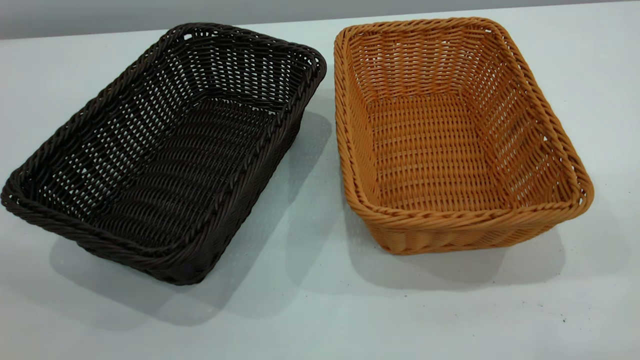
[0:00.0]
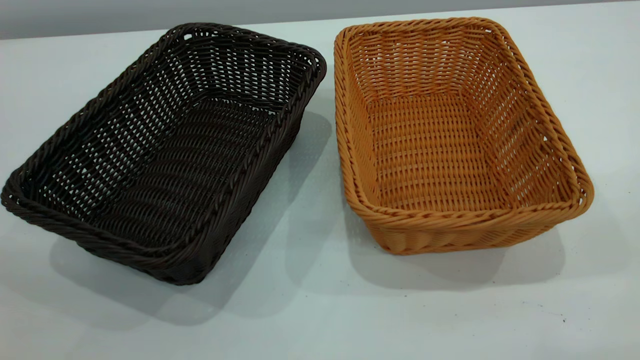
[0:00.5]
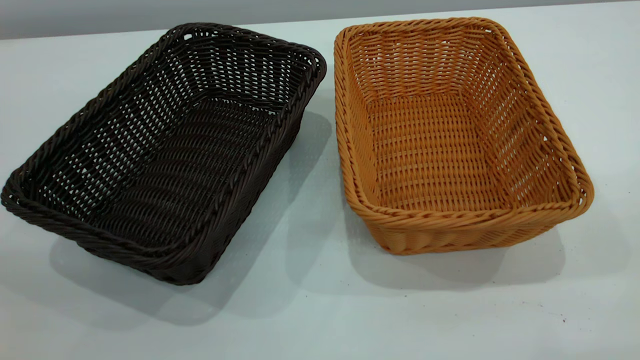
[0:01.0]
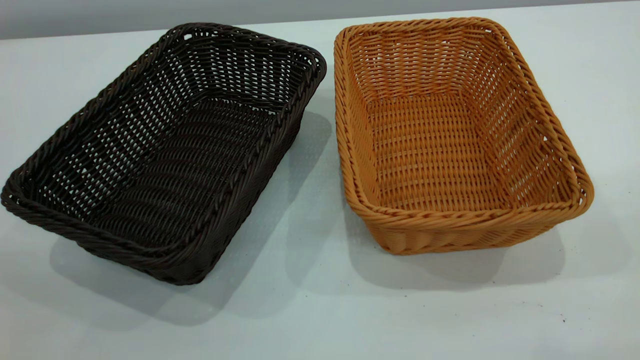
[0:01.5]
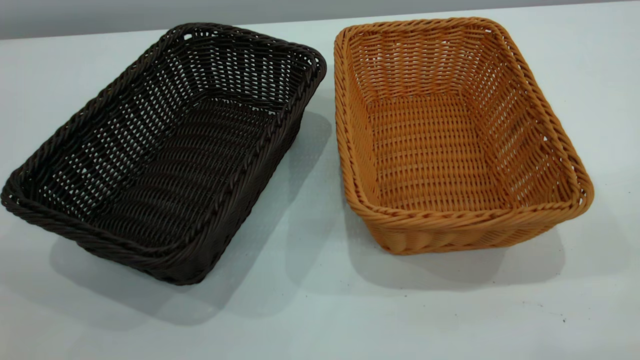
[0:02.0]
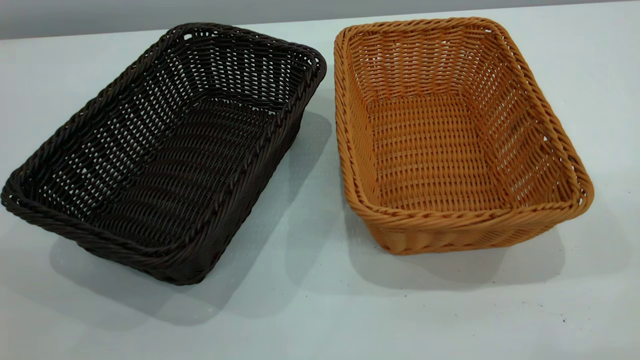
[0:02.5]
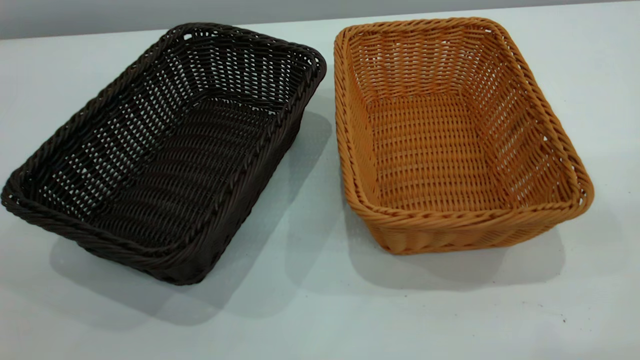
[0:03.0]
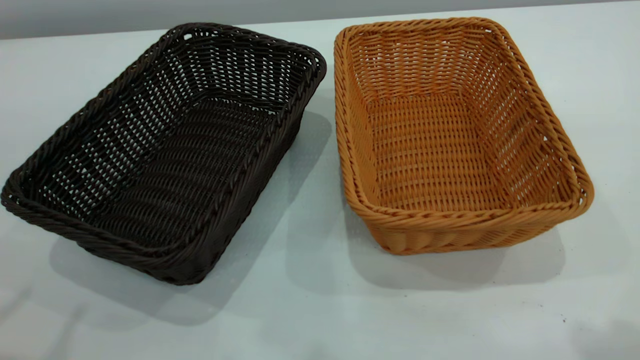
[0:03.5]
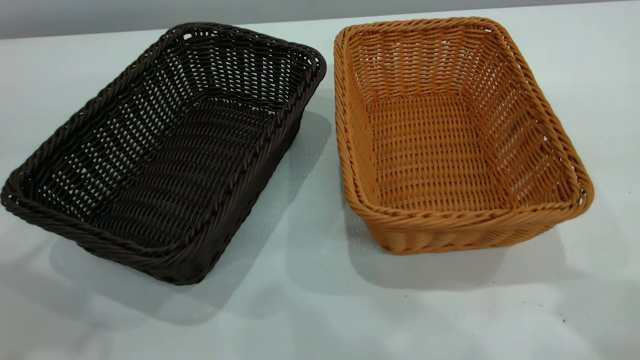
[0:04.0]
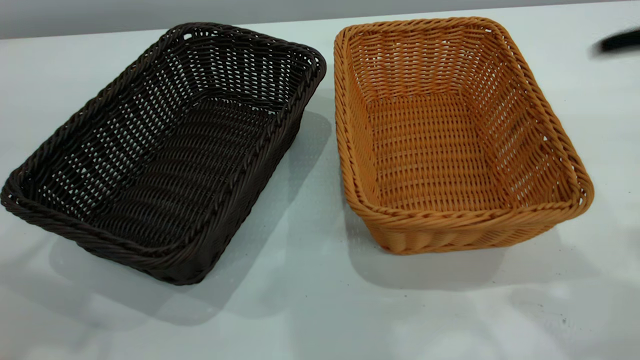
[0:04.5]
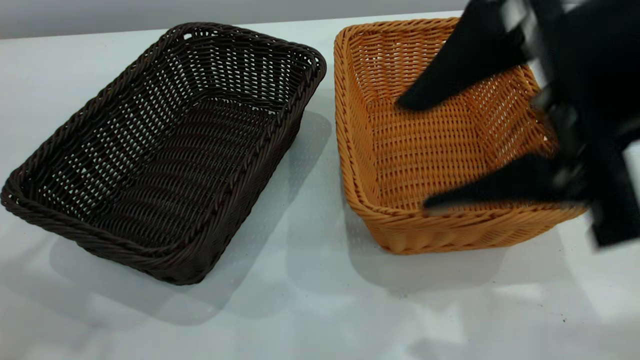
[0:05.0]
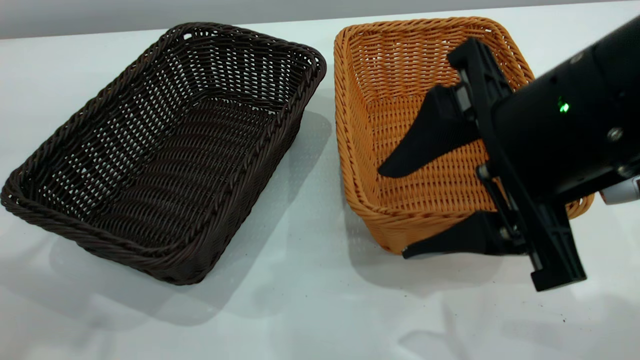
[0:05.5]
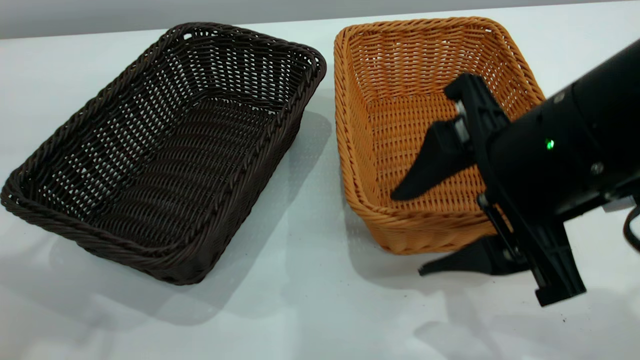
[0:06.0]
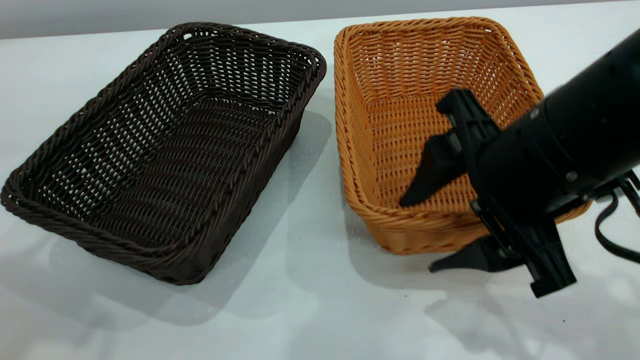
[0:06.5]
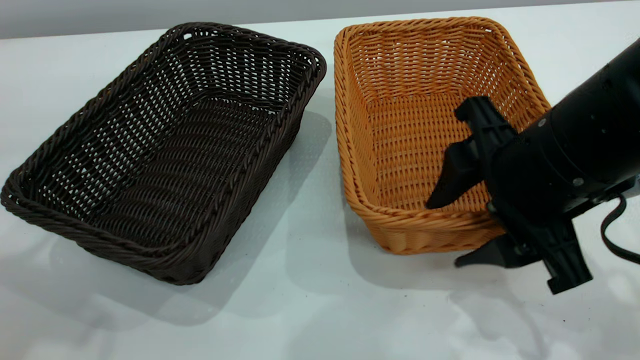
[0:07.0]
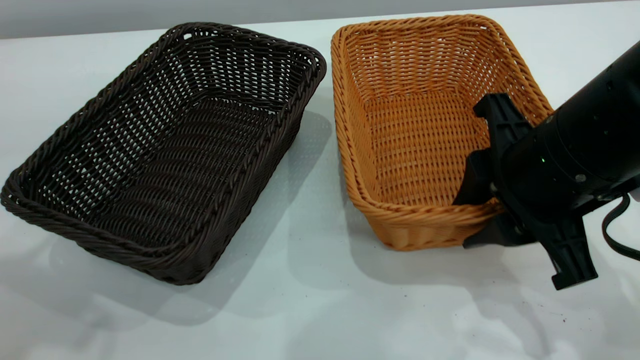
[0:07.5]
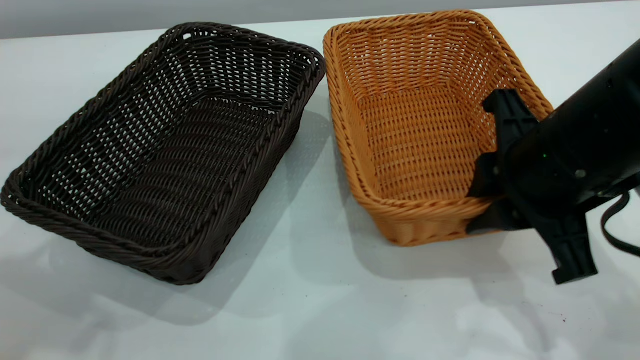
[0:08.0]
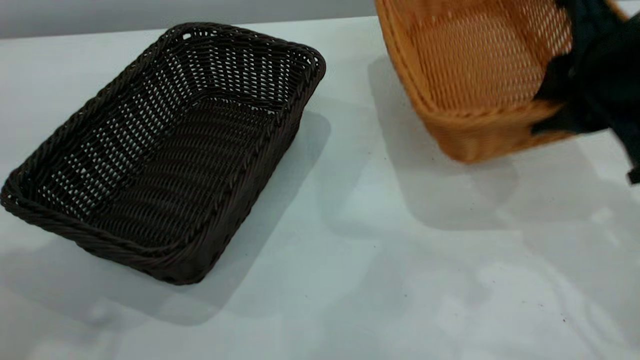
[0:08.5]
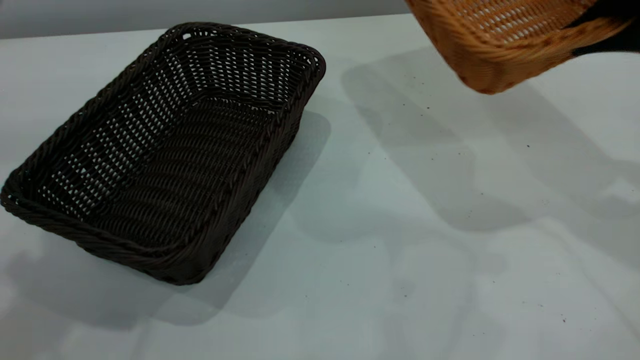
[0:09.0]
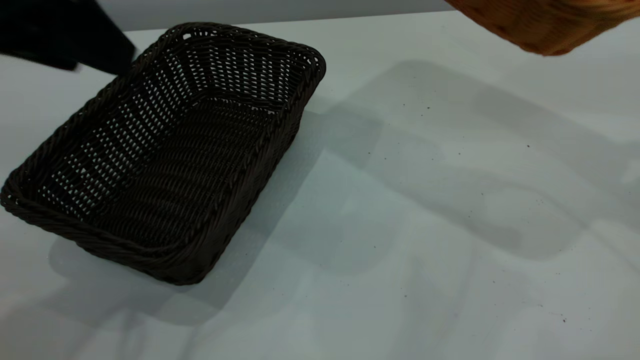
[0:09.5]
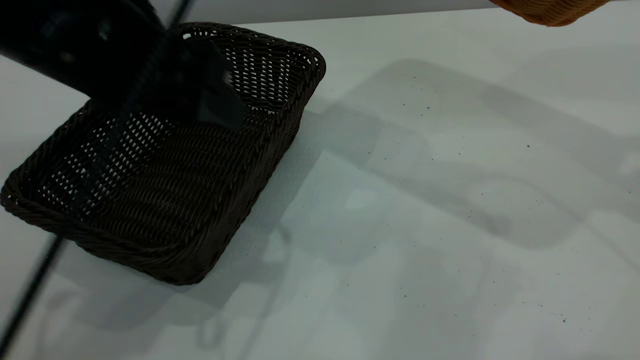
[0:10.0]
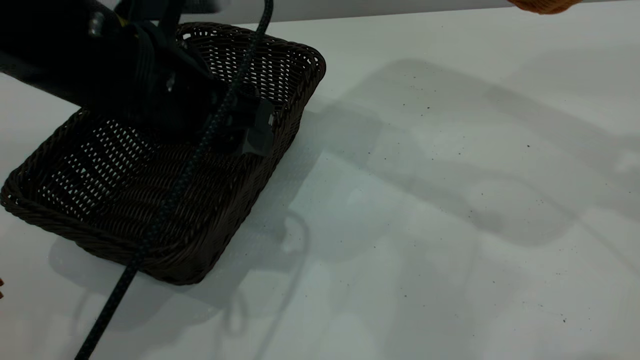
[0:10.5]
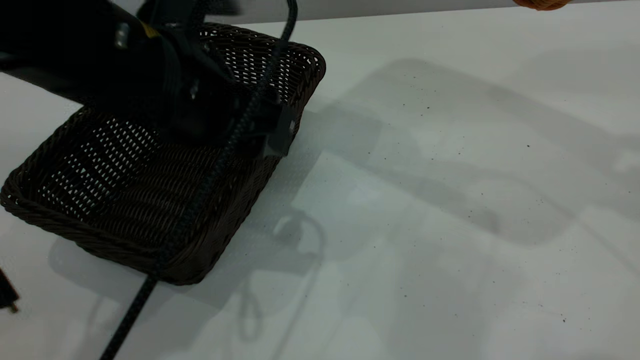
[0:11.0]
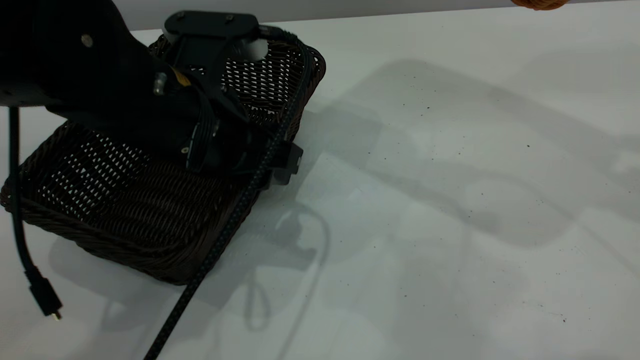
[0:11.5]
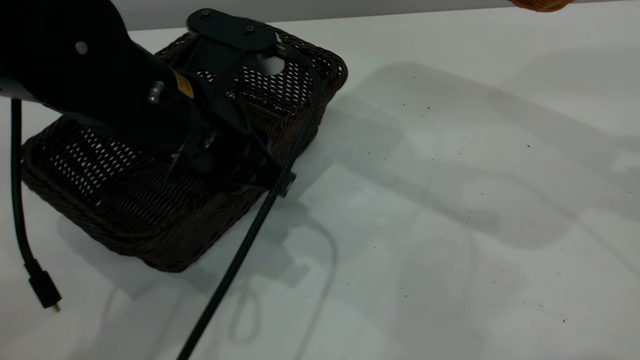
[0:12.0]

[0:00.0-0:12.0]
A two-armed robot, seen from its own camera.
Task of the whole recording: the left gripper grasp the black basket and place it in the center of the table, the right gripper grasp the brown basket and place it inside the black one.
Step, 0:00.0 to 0:08.5: Pick up the light basket with the right gripper.
0:00.0 to 0:02.0: The two grippers keep their place.
0:04.0 to 0:06.0: The right gripper moves downward and to the left, approximately 20 cm.
0:06.0 to 0:08.0: The right gripper closes.
0:08.0 to 0:10.0: The right gripper travels upward and to the right by some 20 cm; the left gripper shifts approximately 20 cm downward, to the right and forward.
0:10.0 to 0:12.0: The left gripper heads downward, covering about 5 cm, and closes its fingers.

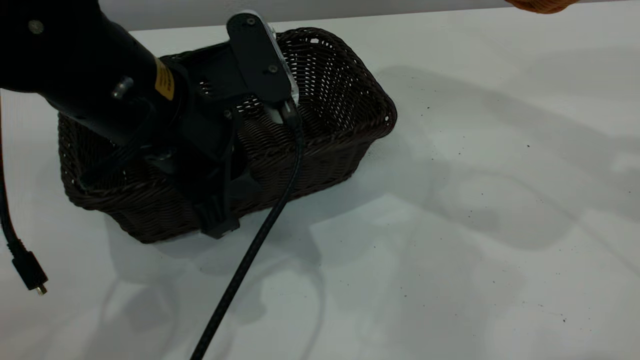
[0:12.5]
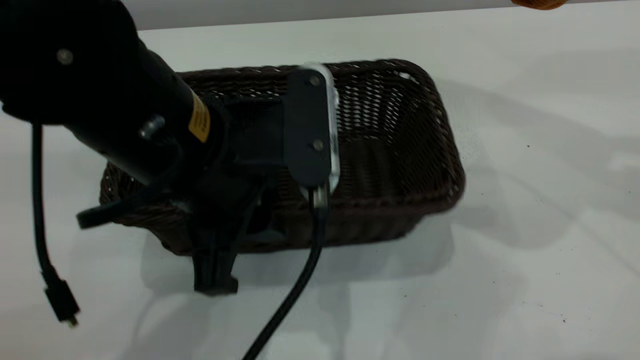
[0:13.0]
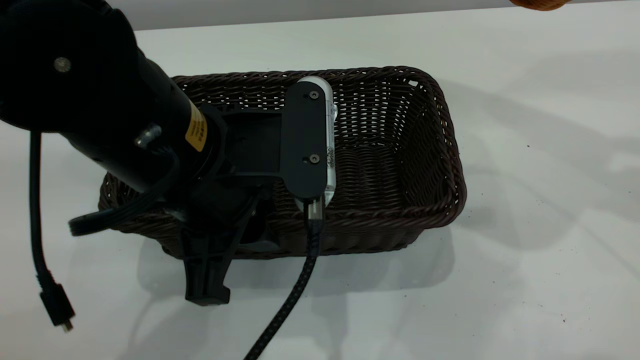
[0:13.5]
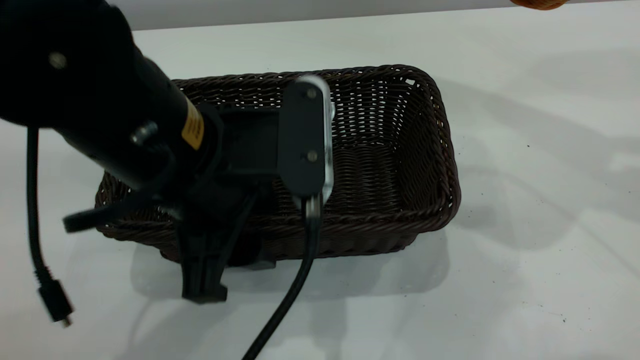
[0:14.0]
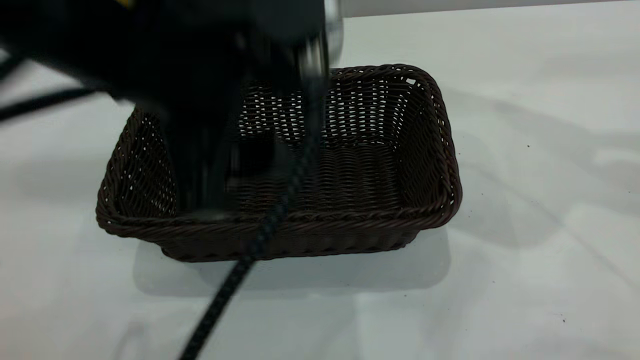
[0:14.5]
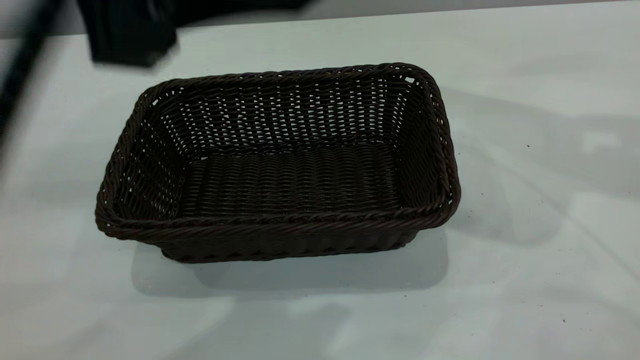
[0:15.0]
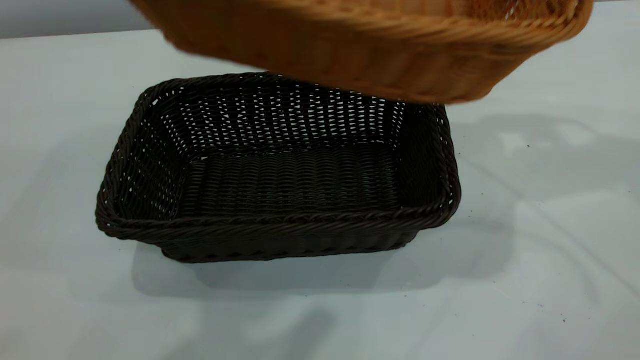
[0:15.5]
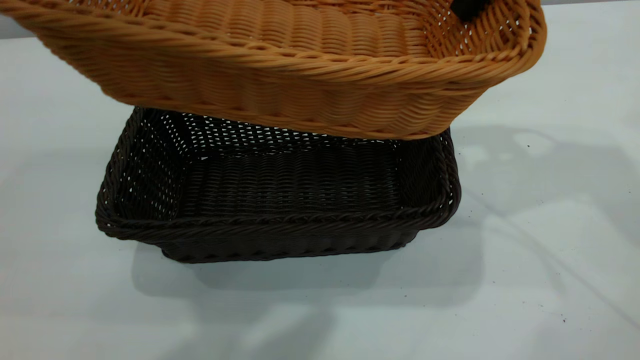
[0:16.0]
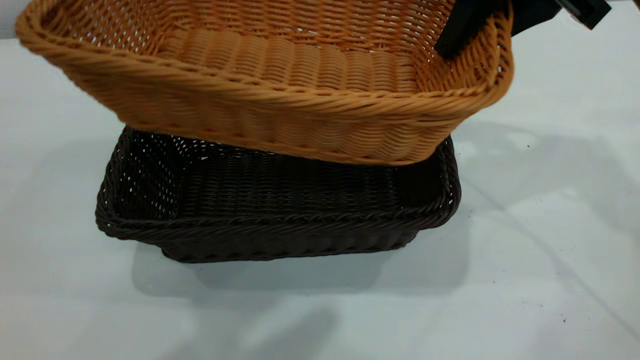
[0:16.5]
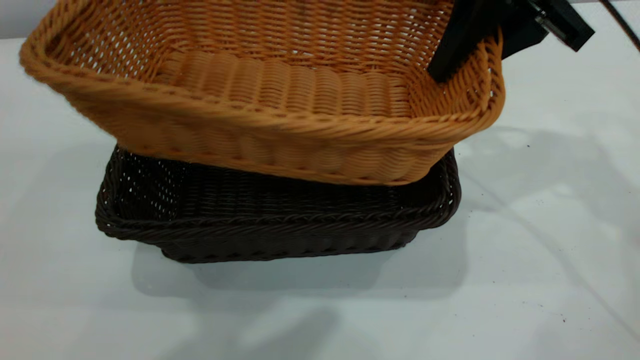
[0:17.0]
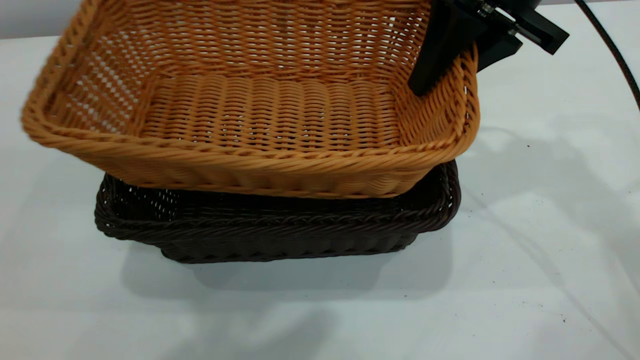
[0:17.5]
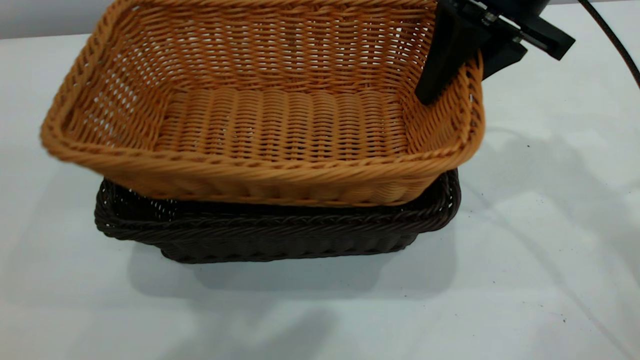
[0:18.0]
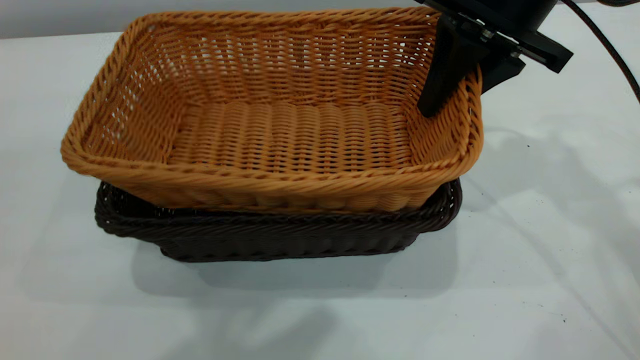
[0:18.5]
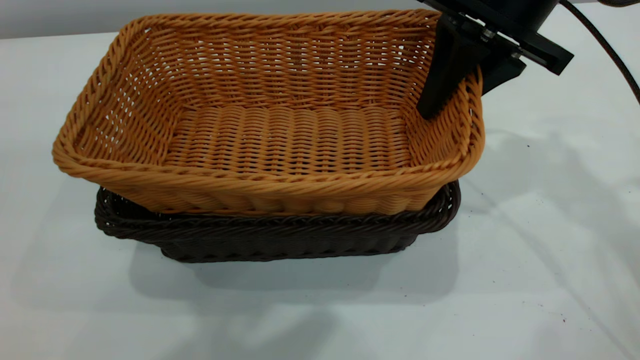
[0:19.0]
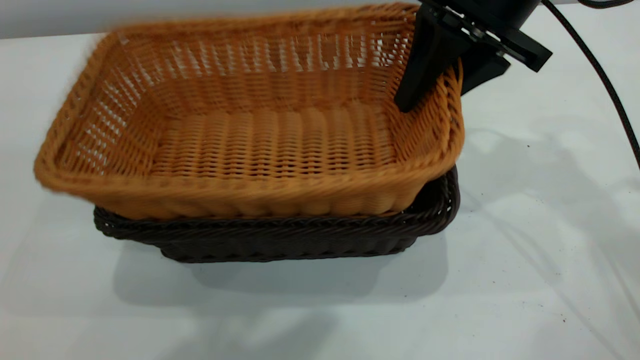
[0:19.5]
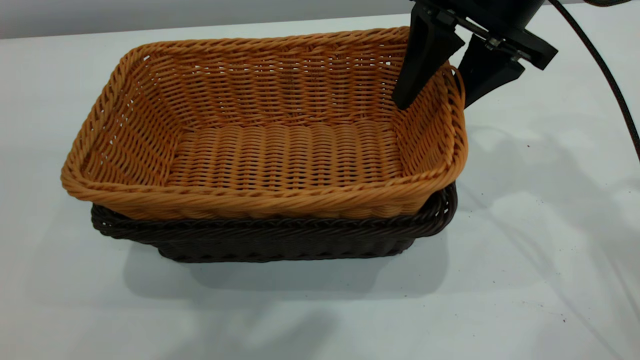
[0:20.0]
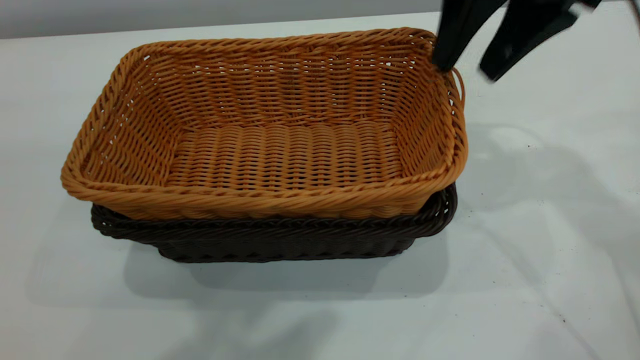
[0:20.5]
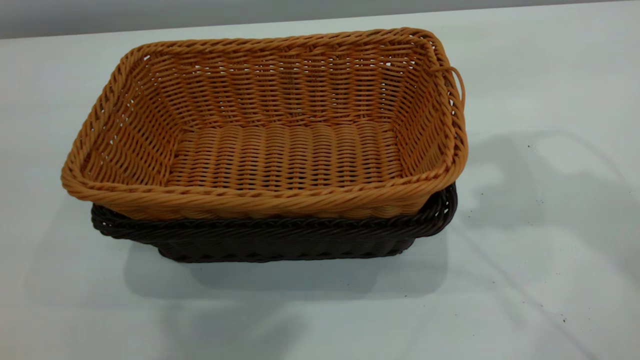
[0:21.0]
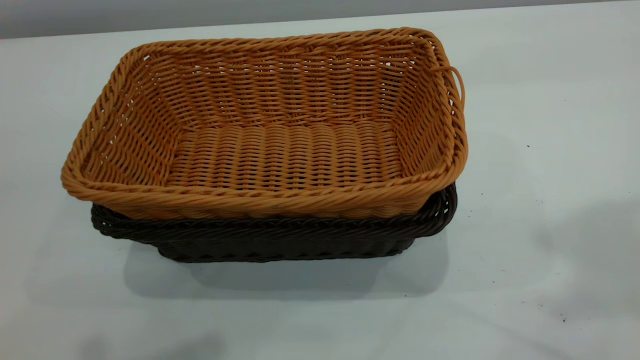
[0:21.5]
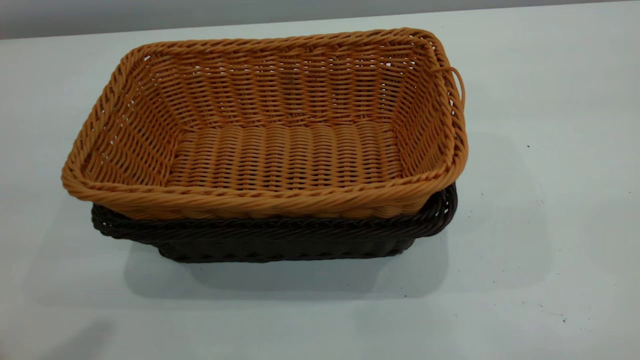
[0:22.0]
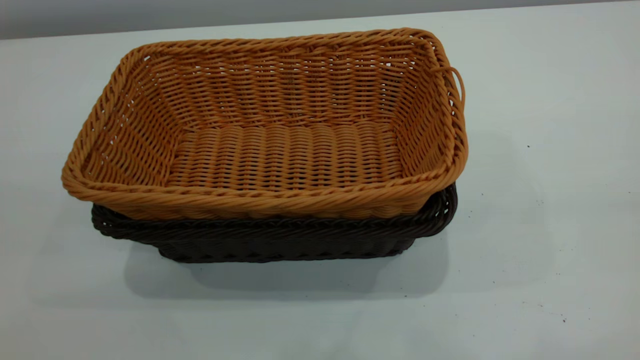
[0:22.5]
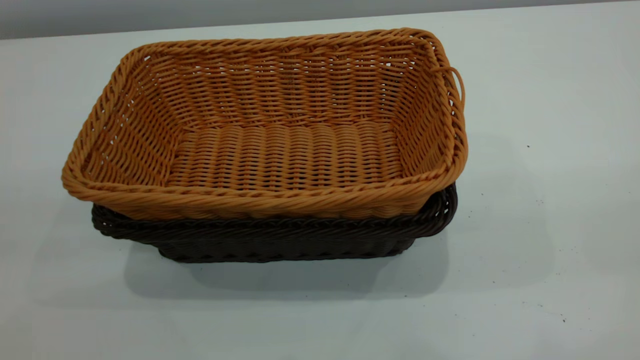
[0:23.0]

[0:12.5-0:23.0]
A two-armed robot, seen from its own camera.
Task of the whole recording: the left gripper grasp the black basket and place it in the center of the table, the right gripper grasp the brown basket and place it inside the black one.
Step, 0:12.5 to 0:14.5: Move the dark basket to the center of view.
Step, 0:15.0 to 0:20.5: Place the light basket on the dark basket.
0:12.5 to 0:14.5: The left gripper travels upward and backward by some 10 cm, and opens its fingers.
0:14.5 to 0:16.5: The left gripper is displaced upward by some 15 cm. Meanwhile the right gripper is displaced to the left, downward and forward by approximately 15 cm.
0:19.0 to 0:21.0: The right gripper is displaced upward by about 15 cm, and opens. The left gripper closes.
0:21.0 to 0:23.0: The left gripper shifts roughly 10 cm to the left and backward, and closes. The right gripper is displaced backward by approximately 30 cm, and closes up.
